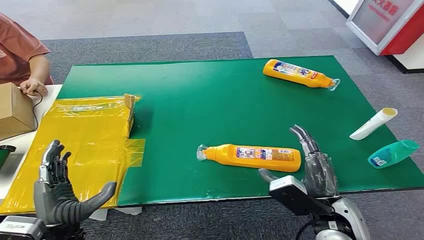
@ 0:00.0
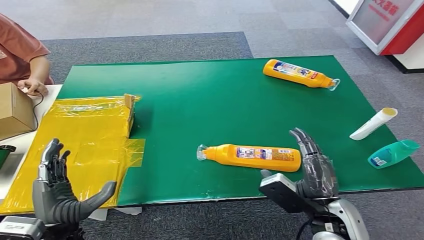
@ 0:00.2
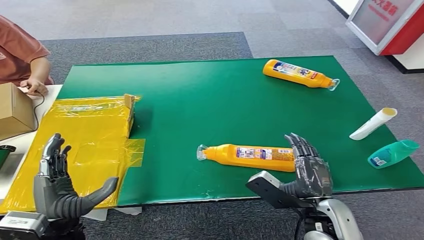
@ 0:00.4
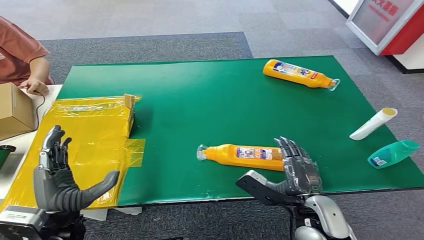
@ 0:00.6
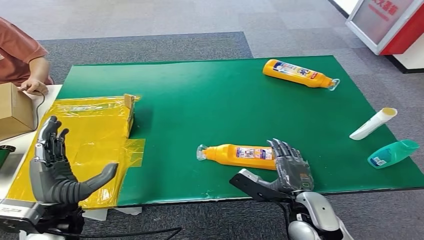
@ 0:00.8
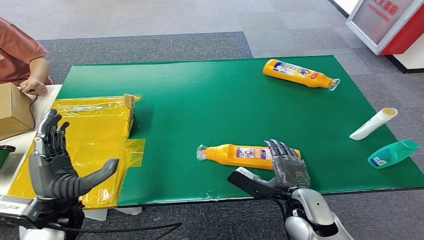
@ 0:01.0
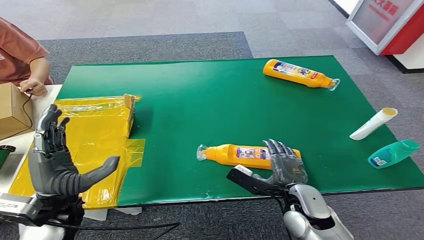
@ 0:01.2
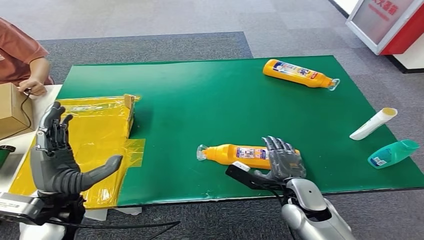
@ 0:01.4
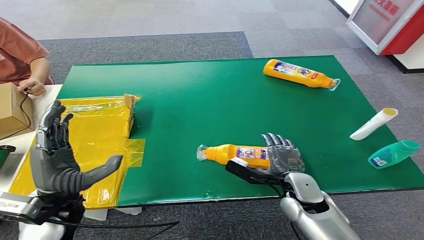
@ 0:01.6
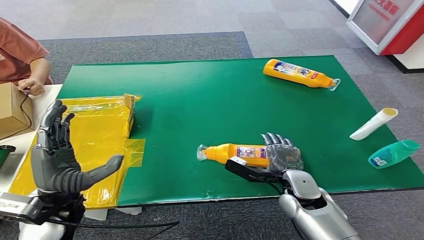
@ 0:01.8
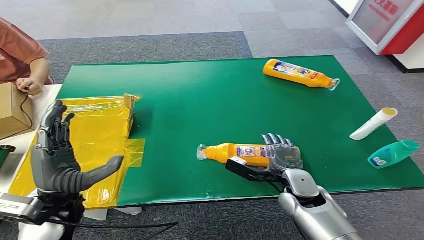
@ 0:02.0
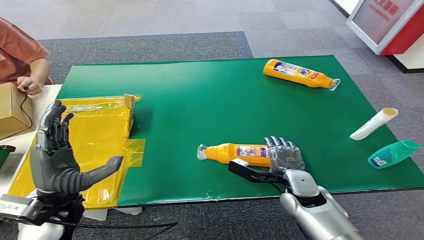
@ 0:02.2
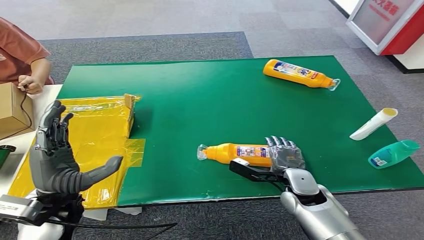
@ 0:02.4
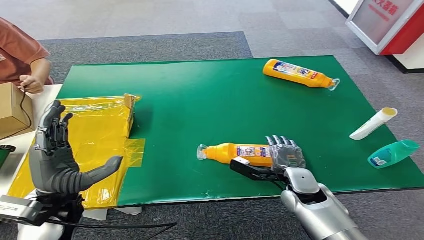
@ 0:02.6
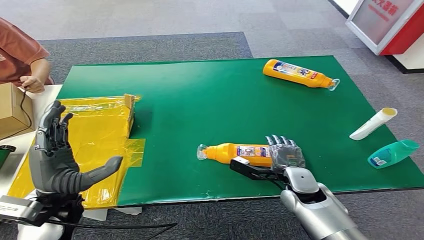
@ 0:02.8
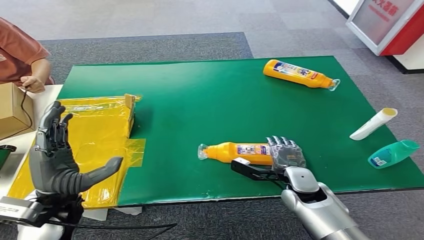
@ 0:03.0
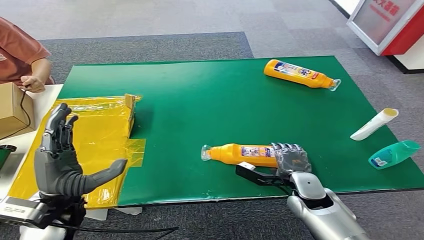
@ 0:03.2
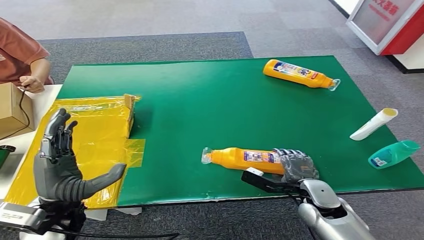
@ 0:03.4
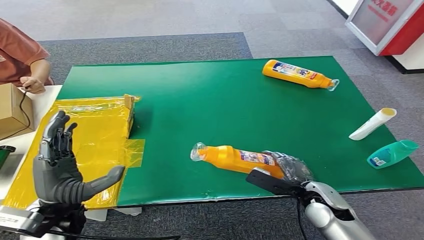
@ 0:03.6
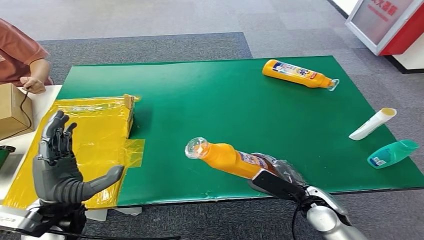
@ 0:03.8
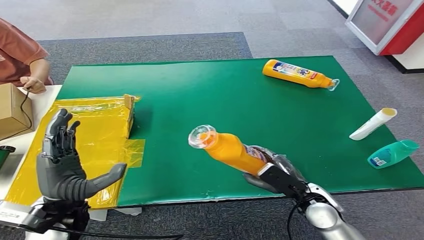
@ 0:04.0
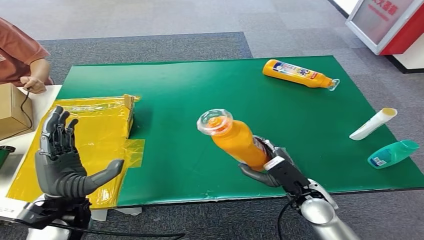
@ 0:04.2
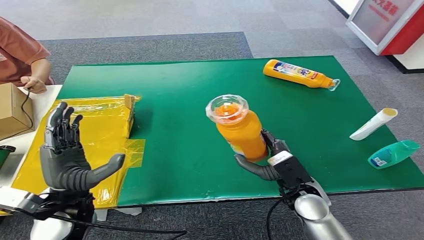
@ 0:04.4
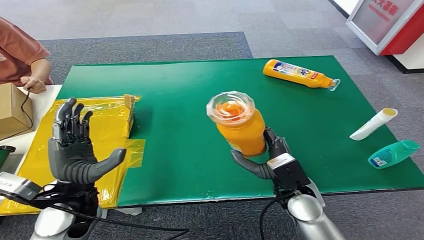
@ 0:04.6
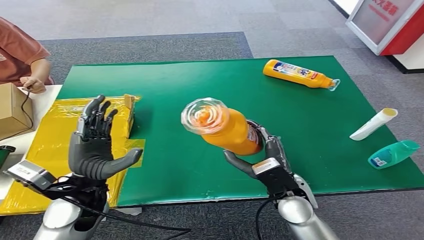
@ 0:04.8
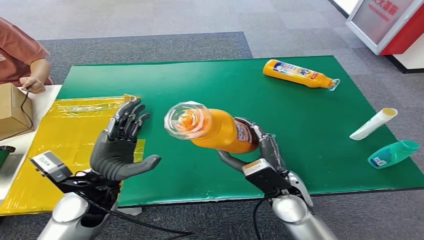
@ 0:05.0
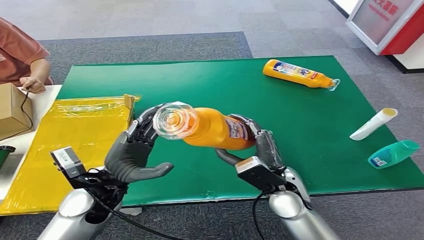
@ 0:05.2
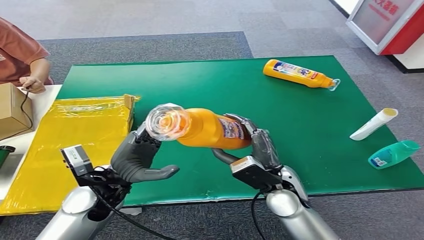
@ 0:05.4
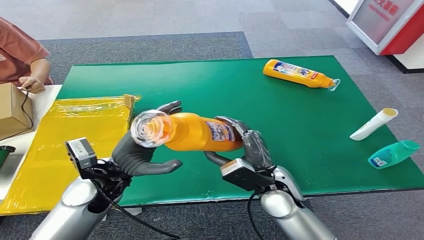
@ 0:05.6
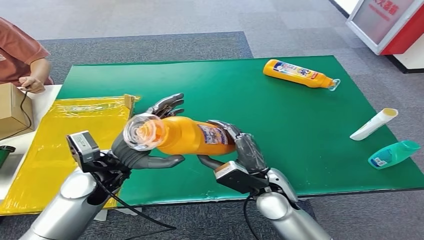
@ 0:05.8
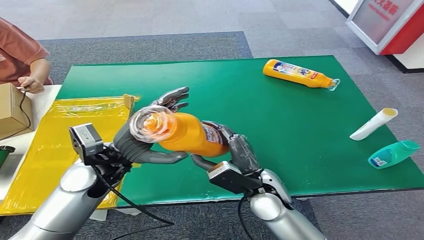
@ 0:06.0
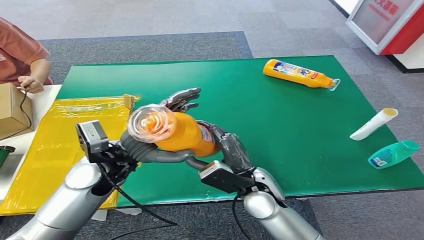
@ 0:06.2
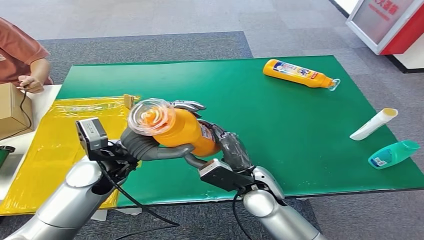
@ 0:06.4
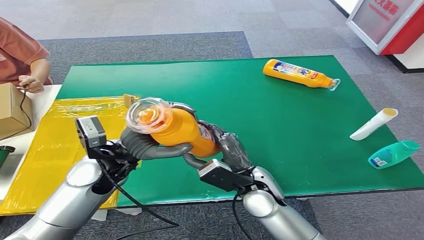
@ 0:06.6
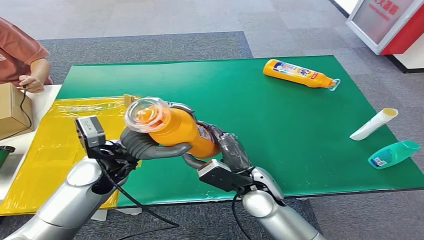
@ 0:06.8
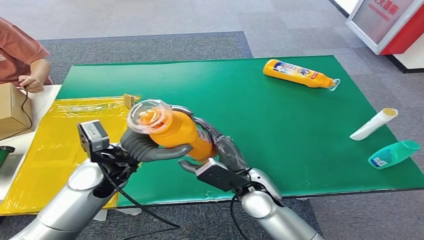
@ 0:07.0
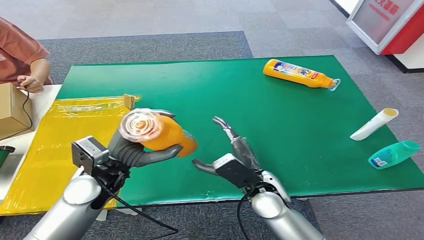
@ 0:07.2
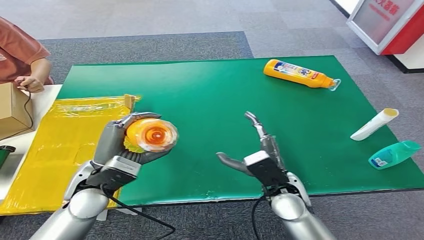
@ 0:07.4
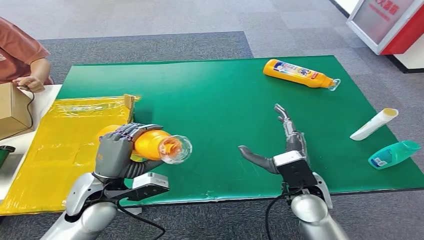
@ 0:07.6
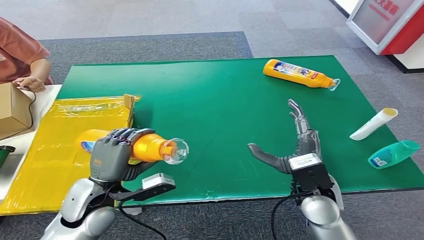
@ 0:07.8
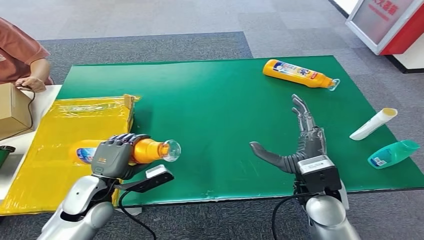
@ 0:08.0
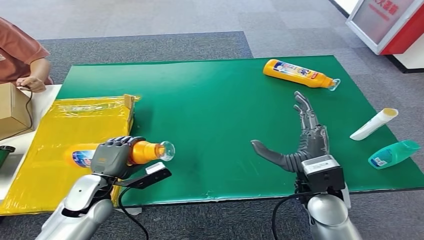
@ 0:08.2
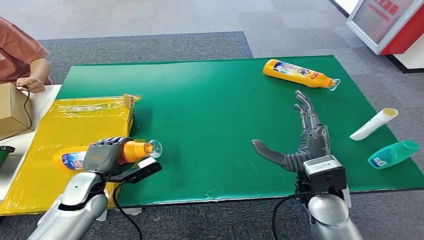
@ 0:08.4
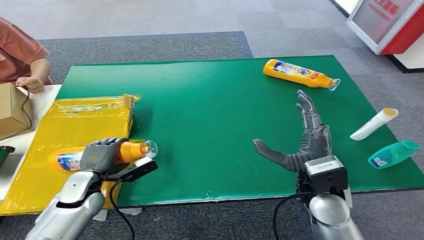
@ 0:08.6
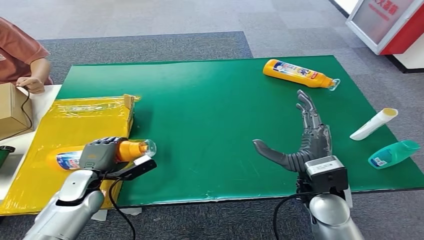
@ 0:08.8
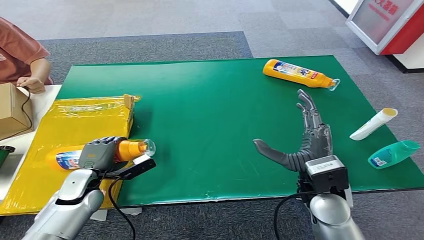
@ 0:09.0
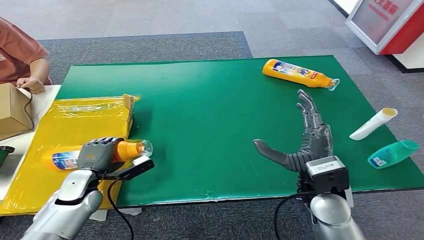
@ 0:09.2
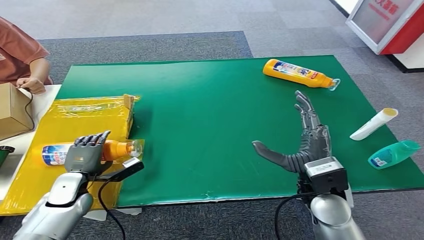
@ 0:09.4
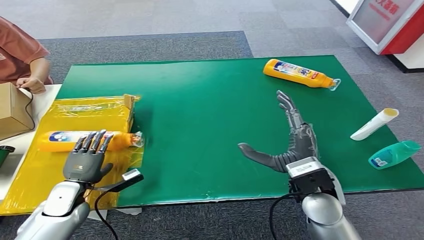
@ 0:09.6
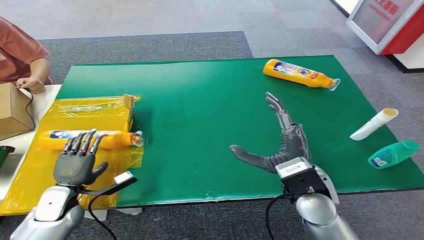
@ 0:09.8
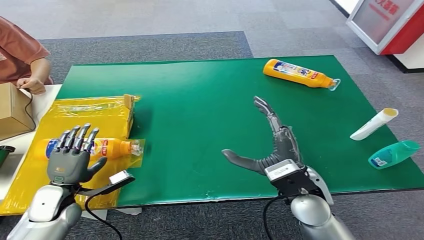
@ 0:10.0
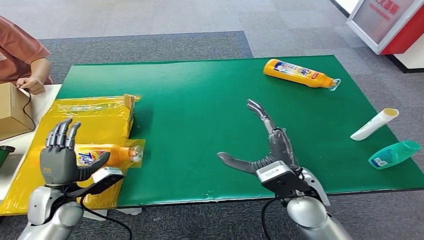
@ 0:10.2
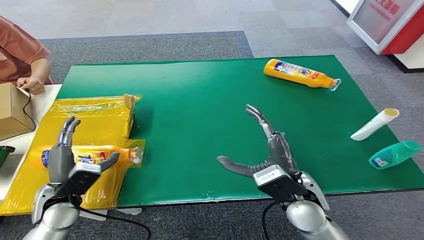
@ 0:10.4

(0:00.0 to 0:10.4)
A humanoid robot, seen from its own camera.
Step, 0:00.0 - 0:04.4: Pick up the bottle from the table.
Step, 0:04.6 - 0:10.4: Turn the bottle to the front side.
0:01.4 - 0:03.0: The right hand shifts by approximately 5 cm.
0:03.0 - 0:04.4: The right hand shifts by roughly 5 cm.
0:06.0 - 0:07.4: The left hand moves roughly 5 cm.
0:07.4 - 0:09.0: The right hand goes roughly 5 cm upward; the left hand heads downward and to the left, covering some 15 cm.
0:09.0 - 0:10.4: The left hand goes about 10 cm backward and upward.
